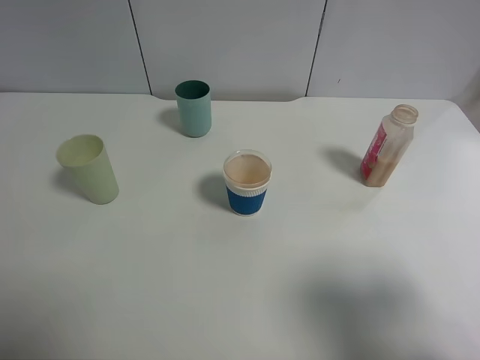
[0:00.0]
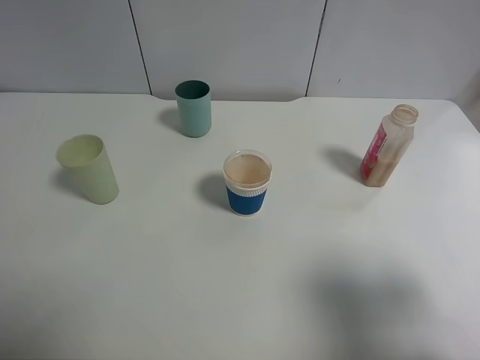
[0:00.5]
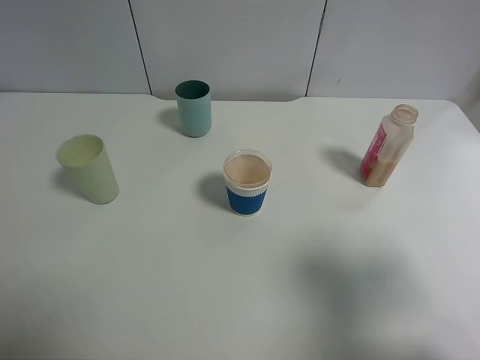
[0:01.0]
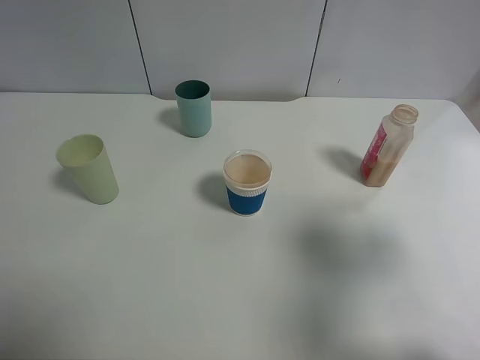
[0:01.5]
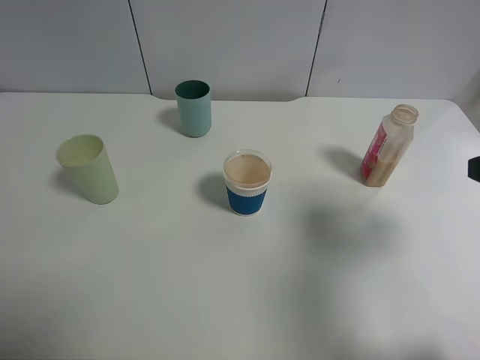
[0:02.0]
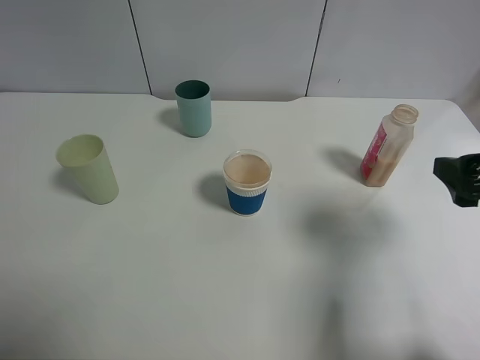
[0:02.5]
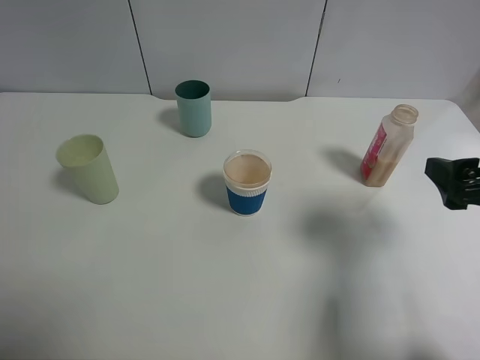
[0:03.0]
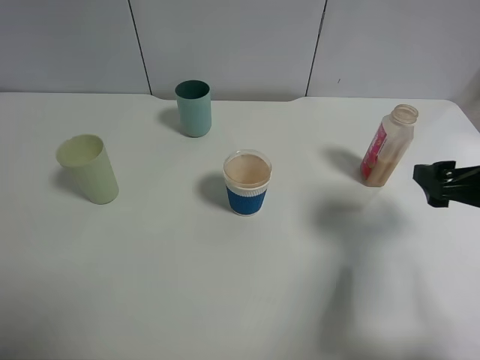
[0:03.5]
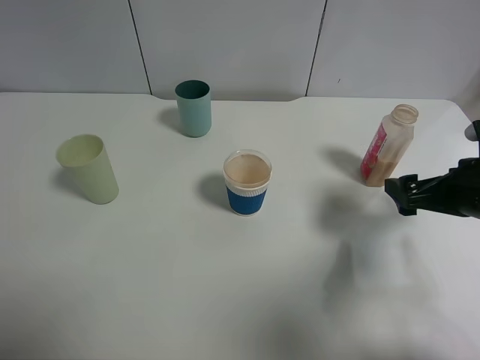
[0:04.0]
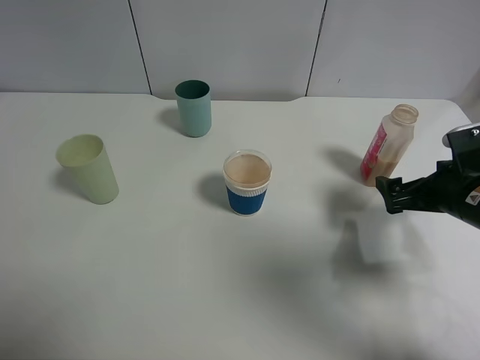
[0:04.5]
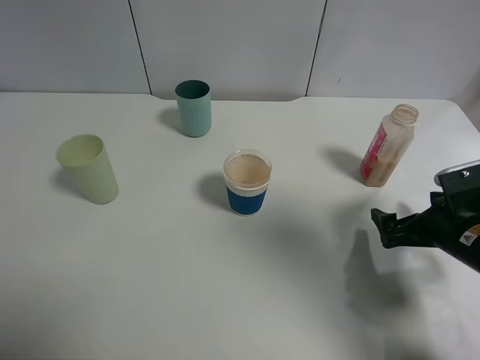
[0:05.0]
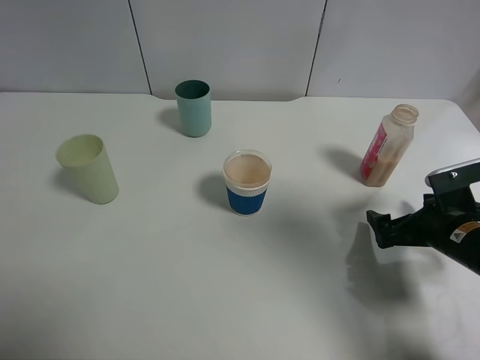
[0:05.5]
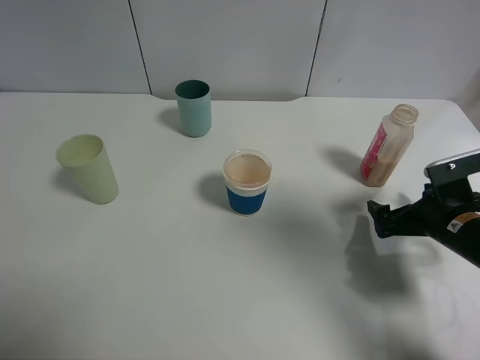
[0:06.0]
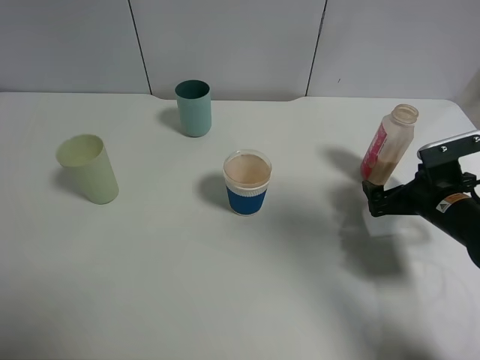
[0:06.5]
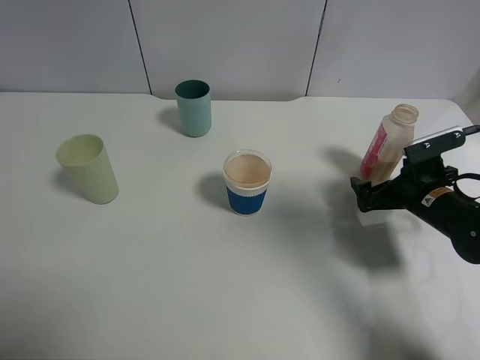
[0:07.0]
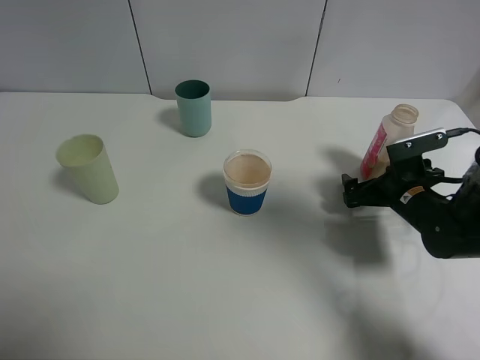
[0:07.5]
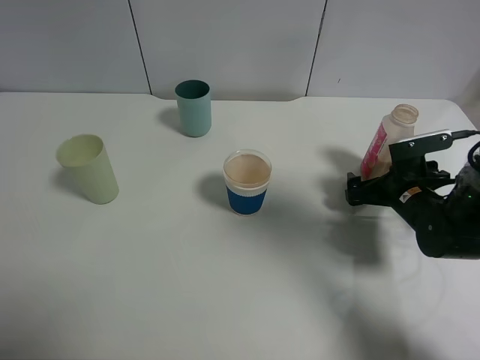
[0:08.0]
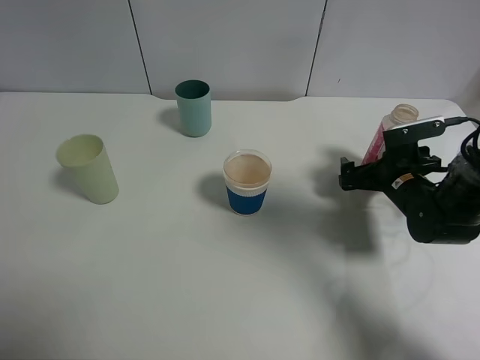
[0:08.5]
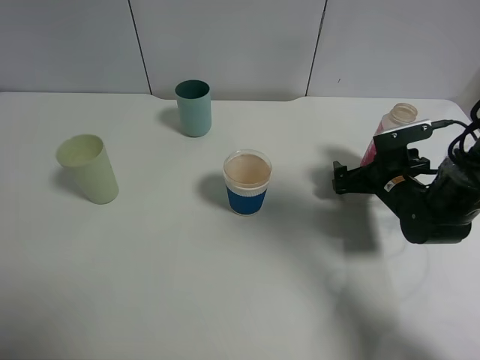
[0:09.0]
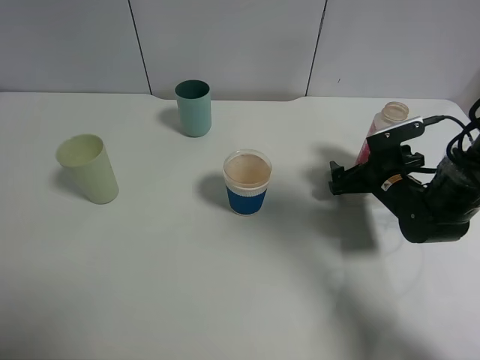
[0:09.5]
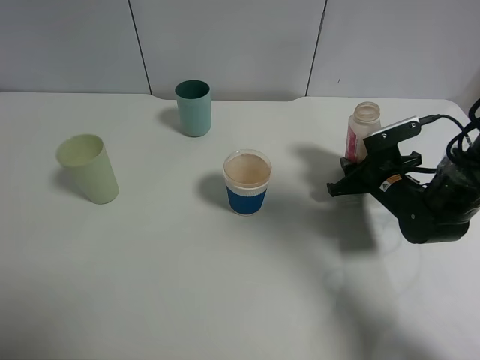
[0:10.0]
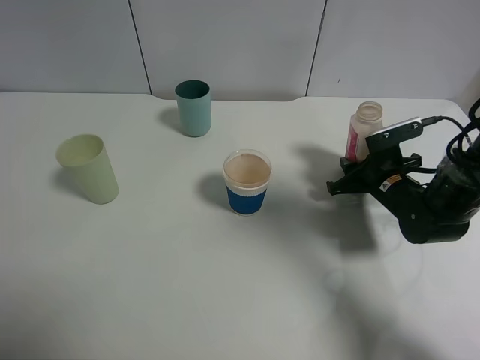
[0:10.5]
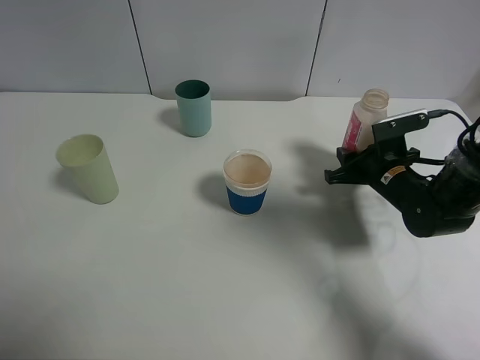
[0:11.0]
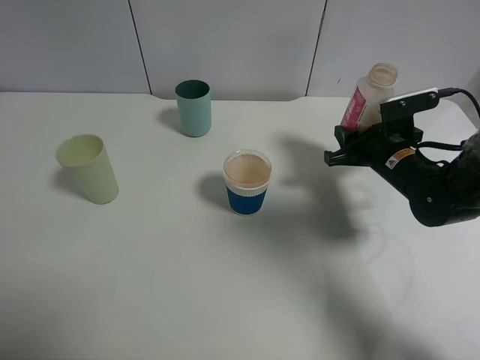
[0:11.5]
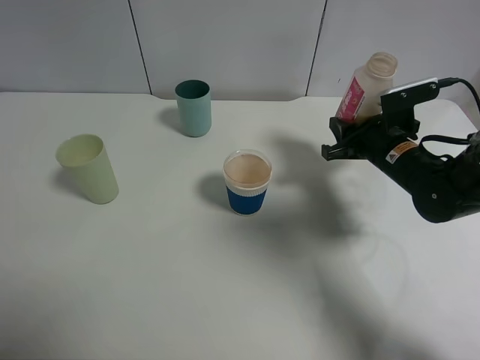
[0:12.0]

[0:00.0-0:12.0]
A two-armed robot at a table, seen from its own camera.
Task of the whole recording: use a clamp to hold the bottle of the drink, pour the beverage into a random cup, then clamp the cup containing the drink and pour the drink into another random cup.
Step, 0:00.0 to 0:11.0: Pick up the drink bottle with right gripper.
0:00.0 to 0:02.0: The right gripper moves forward, approximately 10 cm.
0:02.0 to 0:04.0: The right gripper goes roughly 15 cm downward and forward.
0:04.0 to 0:06.0: The right gripper heads downward, covering roughly 10 cm.
0:06.0 to 0:08.0: The right gripper travels forward by some 5 cm.
0:08.0 to 0:10.0: The right gripper closes.
0:10.0 to 0:12.0: The right gripper is displaced upward by some 5 cm.

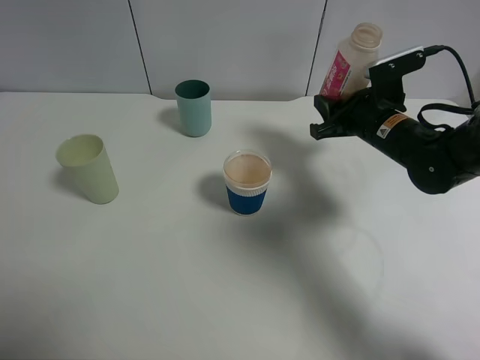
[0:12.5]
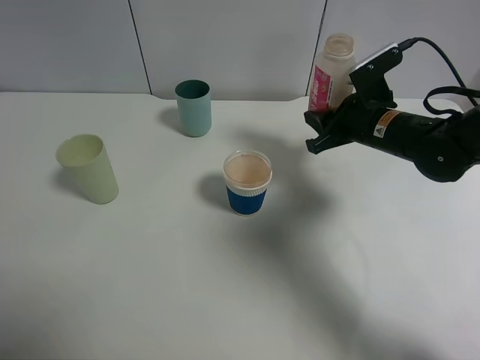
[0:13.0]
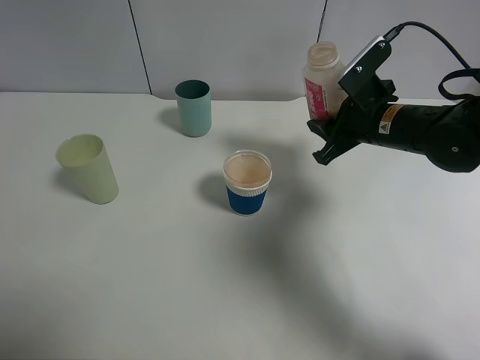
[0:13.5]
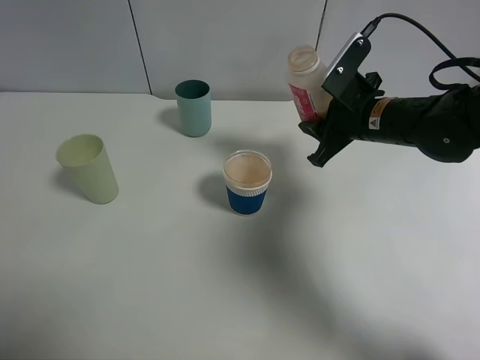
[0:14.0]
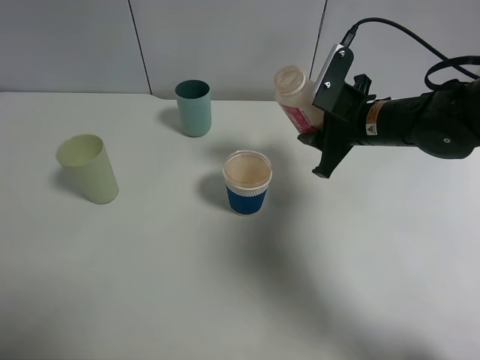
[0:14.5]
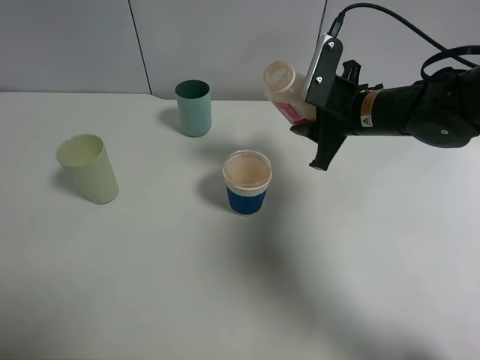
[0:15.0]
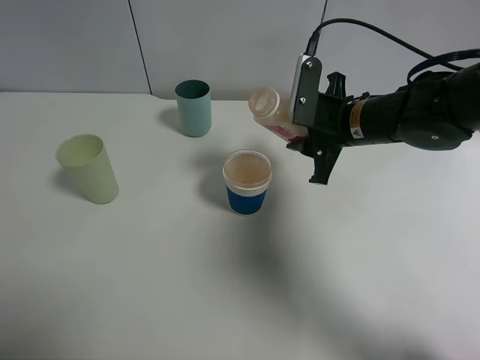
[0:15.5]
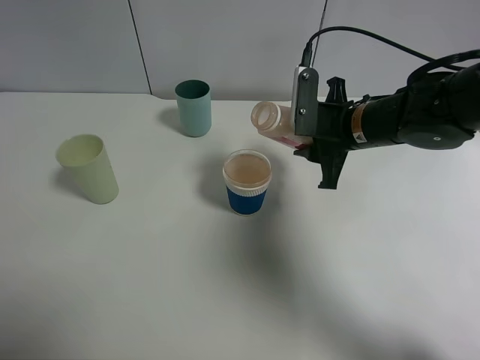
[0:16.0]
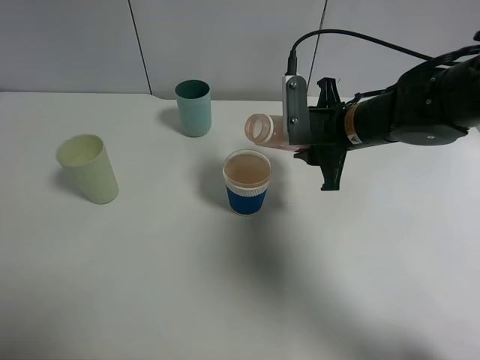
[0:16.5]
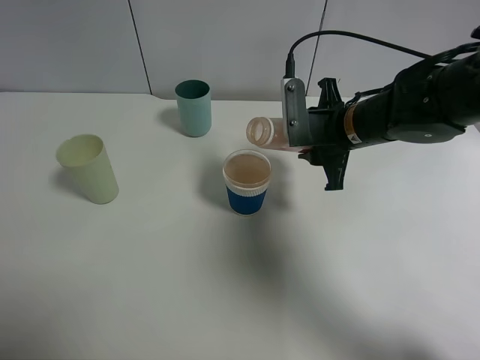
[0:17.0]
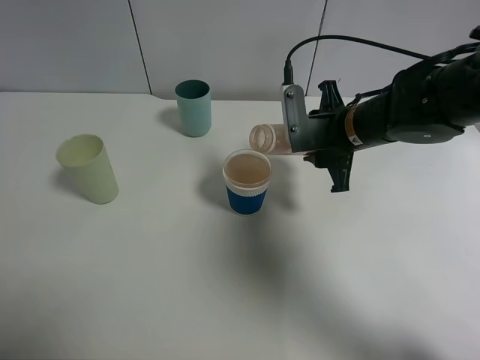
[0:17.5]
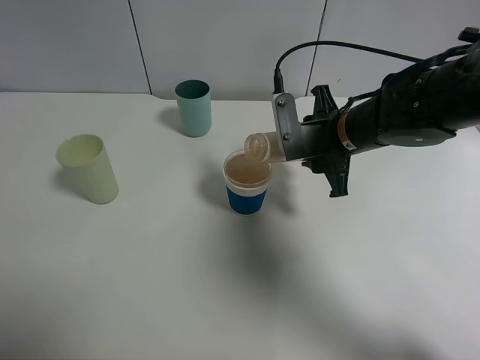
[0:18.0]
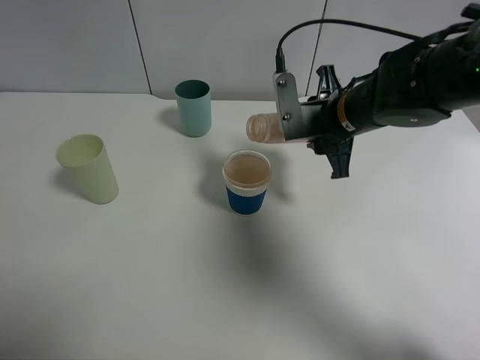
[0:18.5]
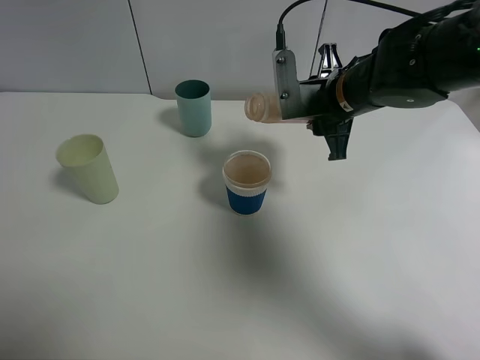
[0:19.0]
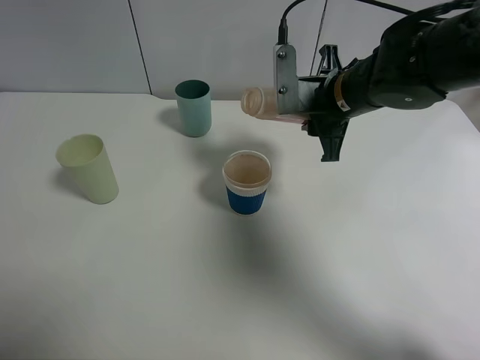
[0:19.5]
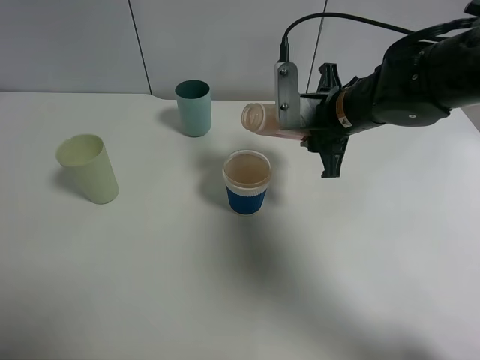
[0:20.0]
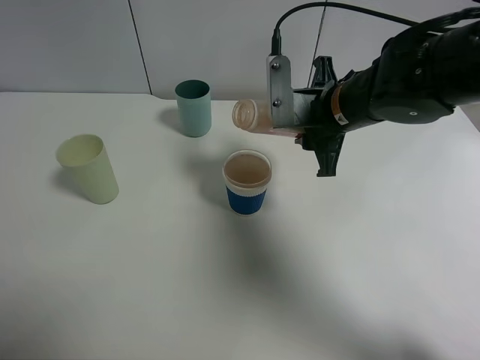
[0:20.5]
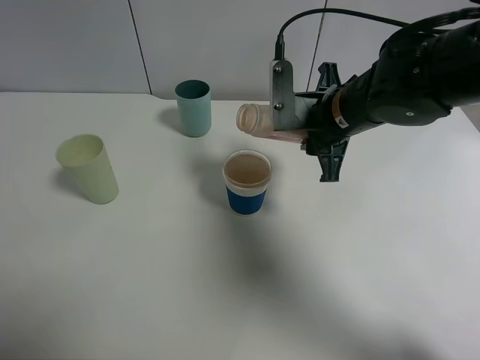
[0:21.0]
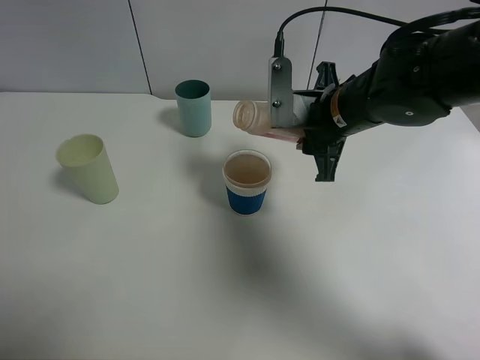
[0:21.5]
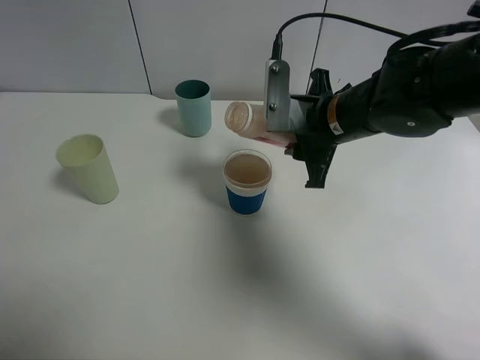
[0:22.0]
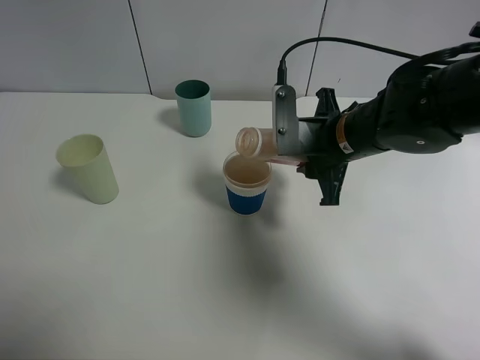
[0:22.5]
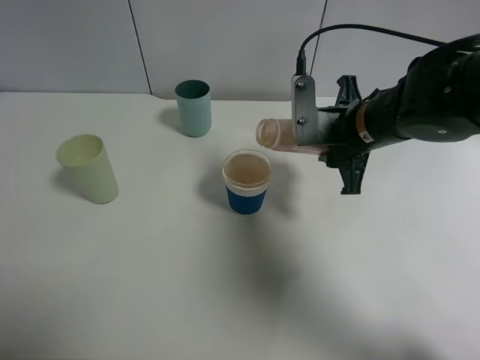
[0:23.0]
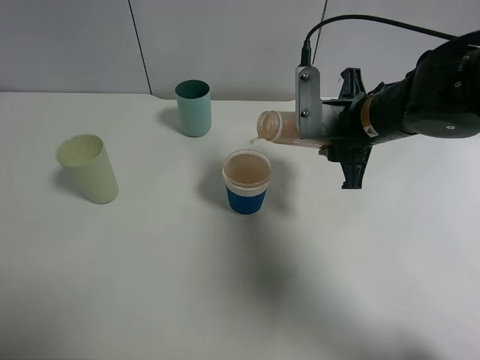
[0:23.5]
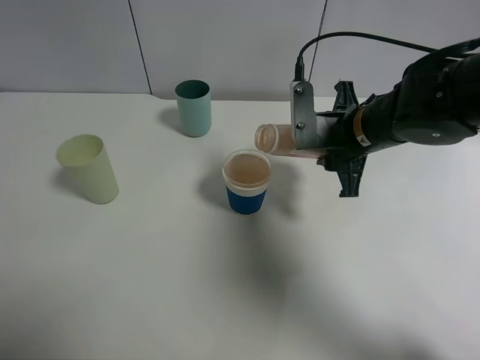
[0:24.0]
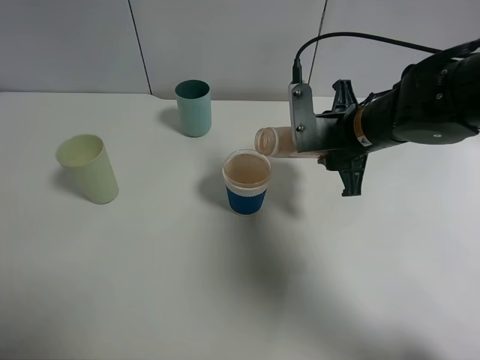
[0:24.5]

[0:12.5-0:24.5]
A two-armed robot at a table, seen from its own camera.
Task of the whole recording: use a clamp to hold the bottle of the drink, pour the beverage into a random cup, then clamp the cup containing the drink and pour the drink into another random cup.
0:16.5 to 0:24.5: The grippers make only small movements.

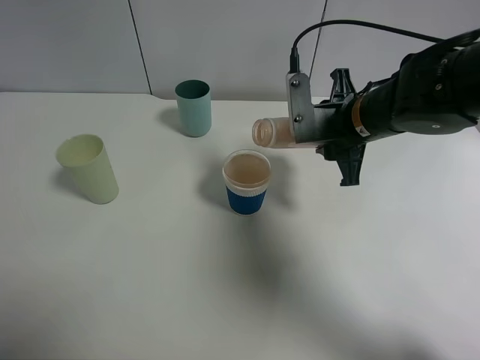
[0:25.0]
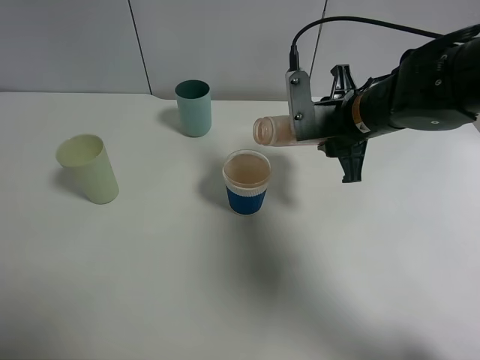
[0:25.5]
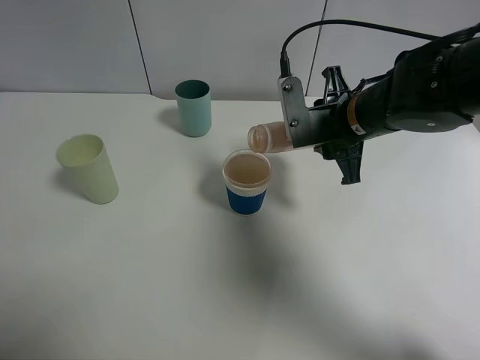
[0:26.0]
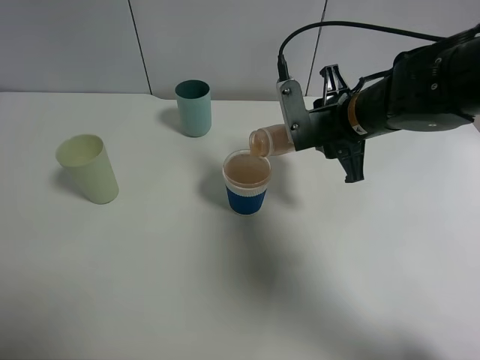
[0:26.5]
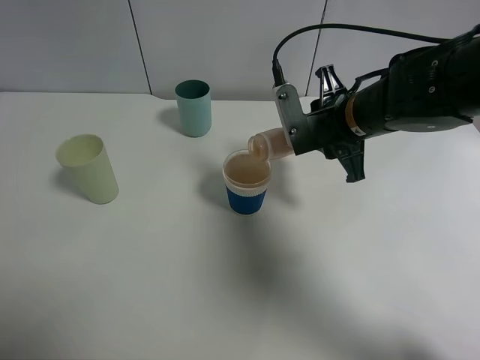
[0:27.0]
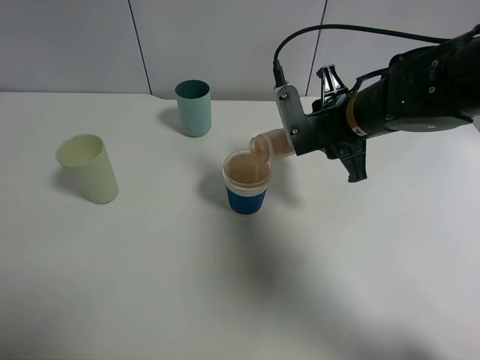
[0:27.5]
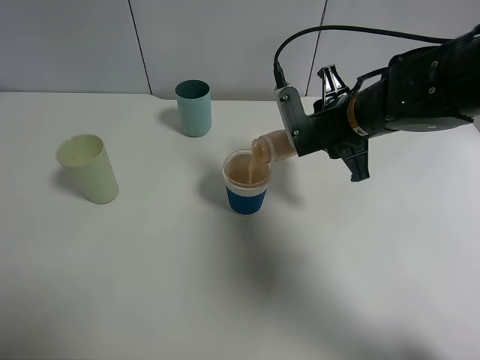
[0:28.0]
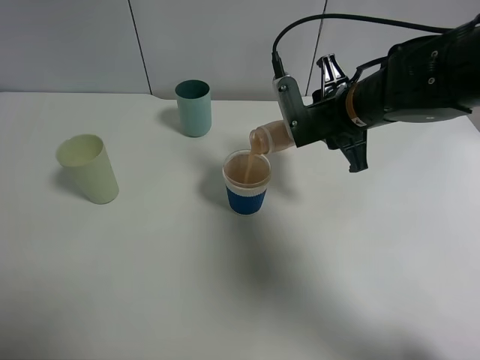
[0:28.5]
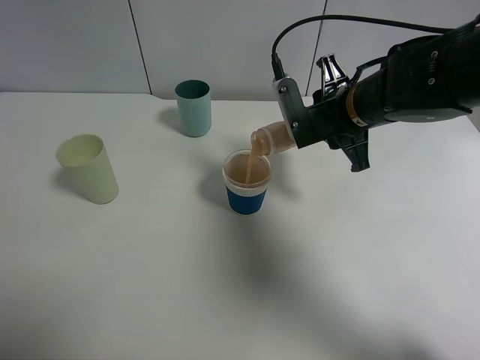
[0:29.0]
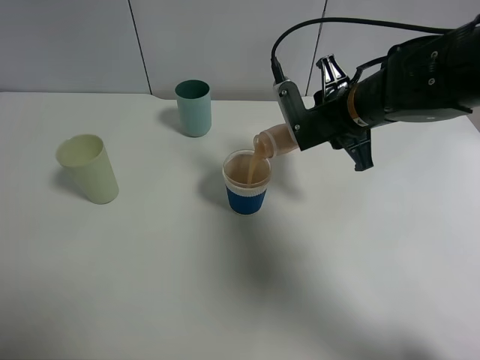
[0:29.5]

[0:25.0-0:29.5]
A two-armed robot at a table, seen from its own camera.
Task of the whole recording: use a clamp to hold the bottle of the drink, pour the beverage into a random cup, then clamp the cup containing the drink and pour the drink into another random cup.
0:25.0 to 0:29.5: There are only small adjustments of the grippers.
